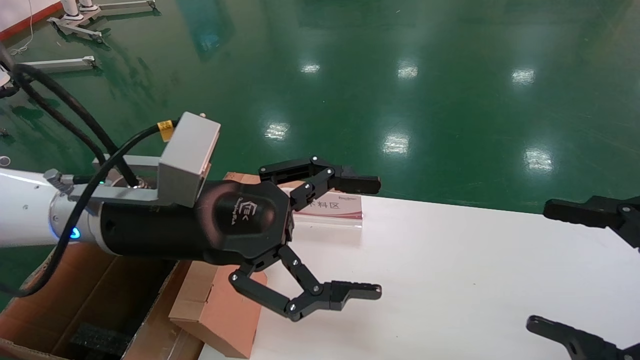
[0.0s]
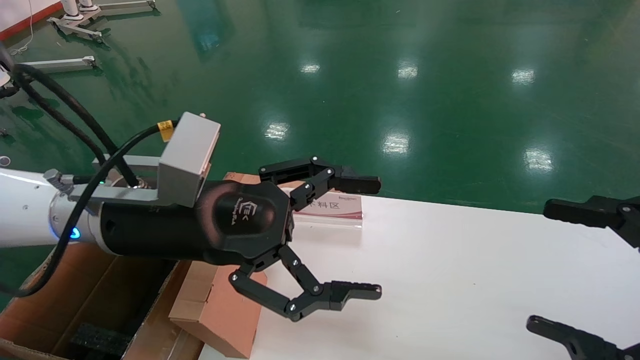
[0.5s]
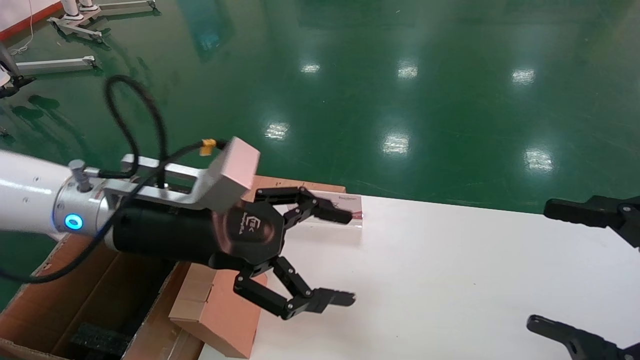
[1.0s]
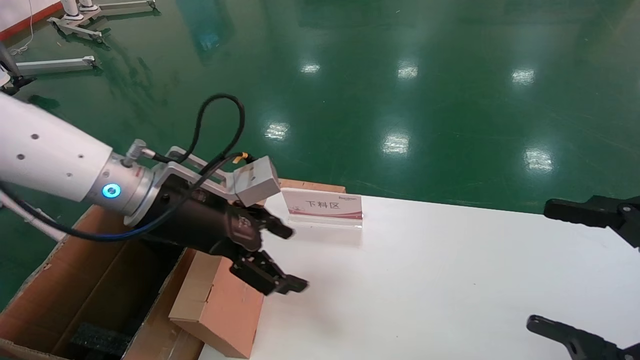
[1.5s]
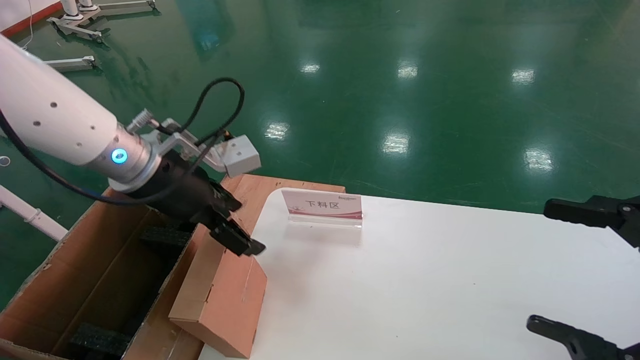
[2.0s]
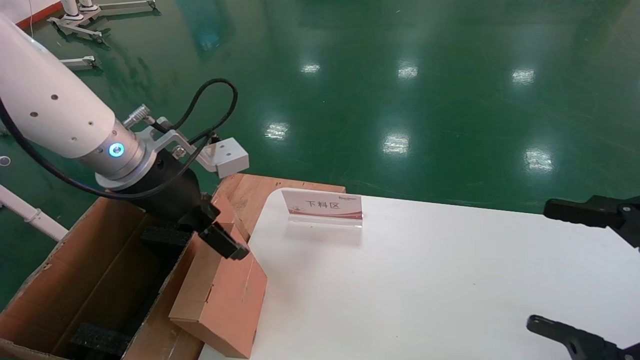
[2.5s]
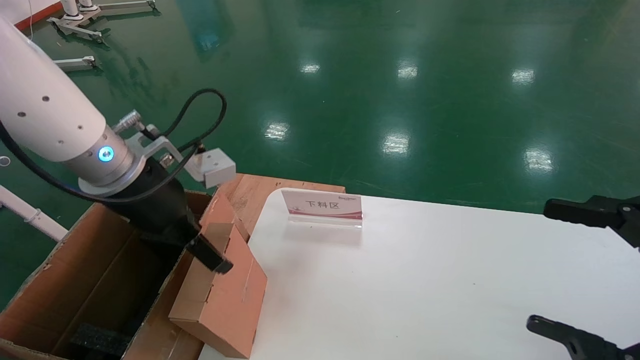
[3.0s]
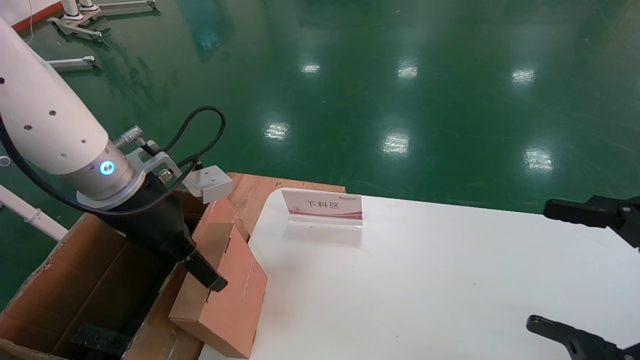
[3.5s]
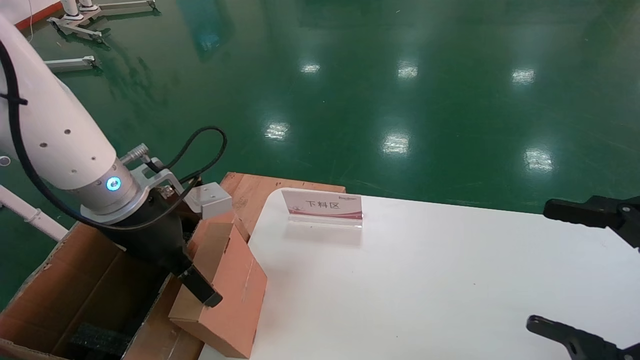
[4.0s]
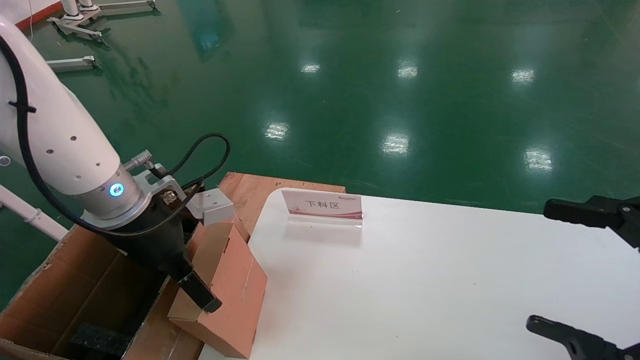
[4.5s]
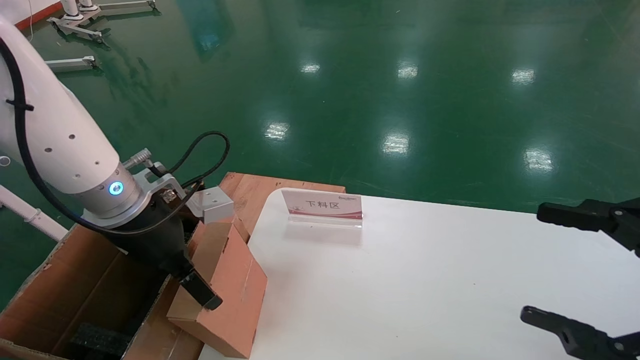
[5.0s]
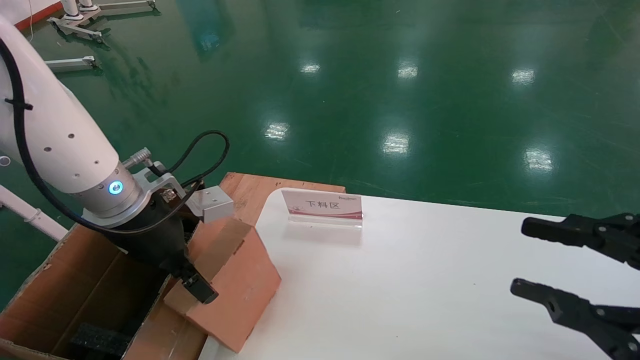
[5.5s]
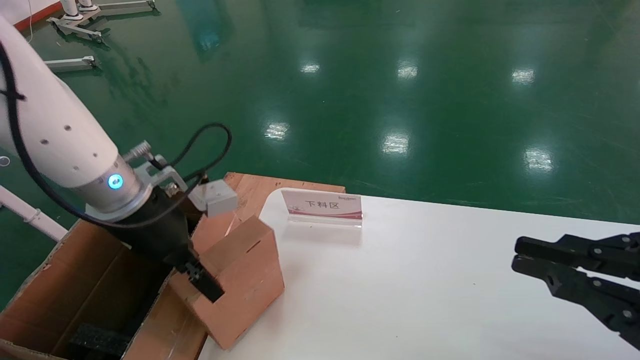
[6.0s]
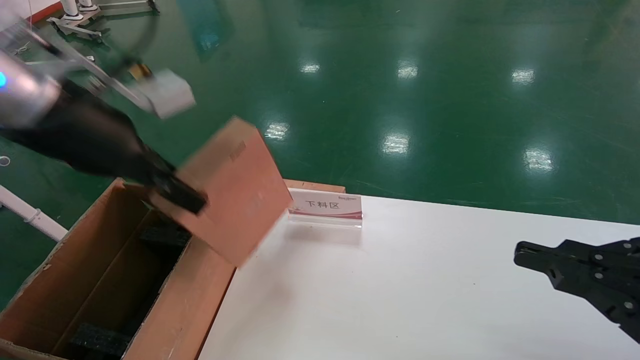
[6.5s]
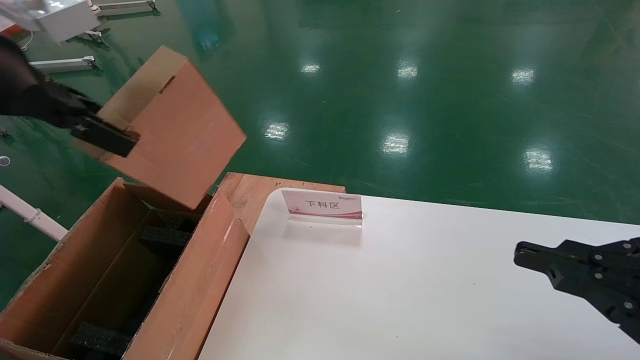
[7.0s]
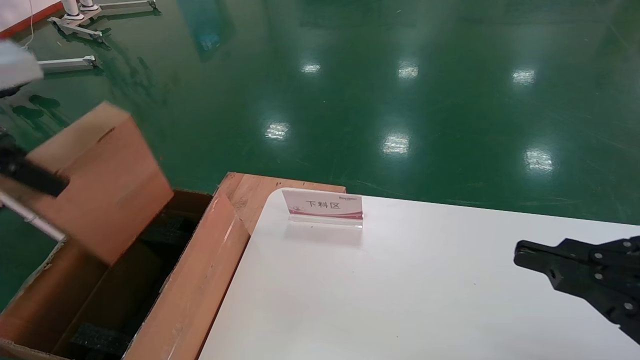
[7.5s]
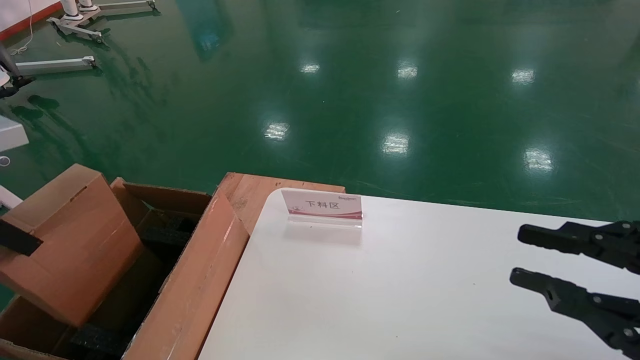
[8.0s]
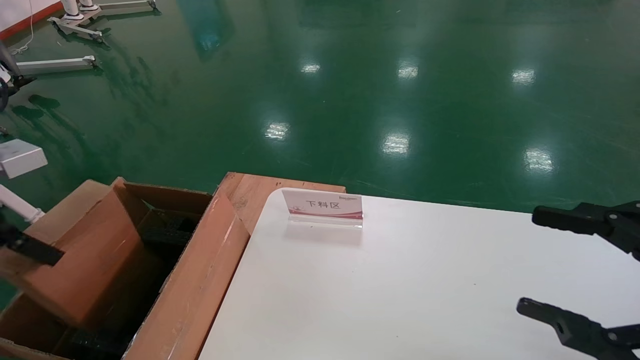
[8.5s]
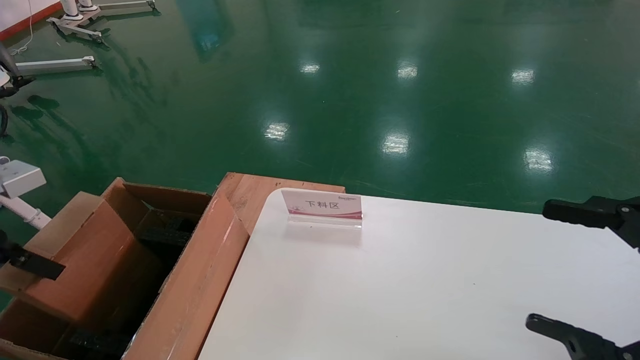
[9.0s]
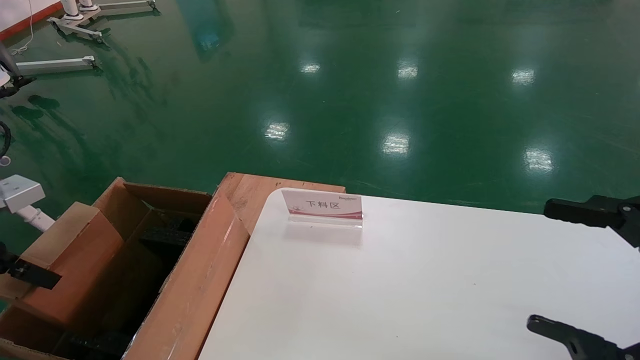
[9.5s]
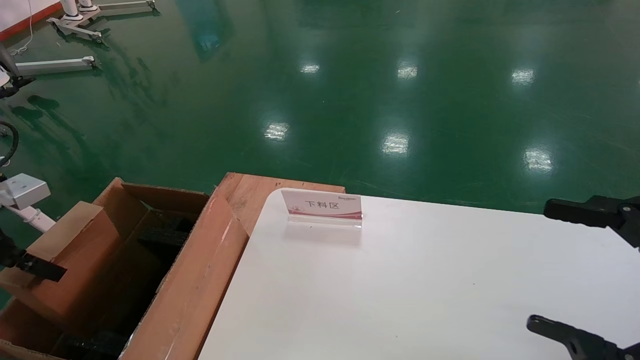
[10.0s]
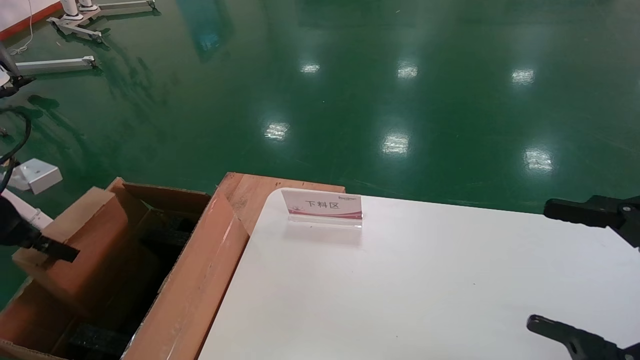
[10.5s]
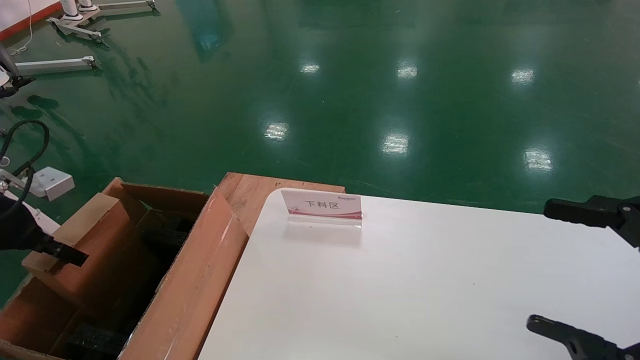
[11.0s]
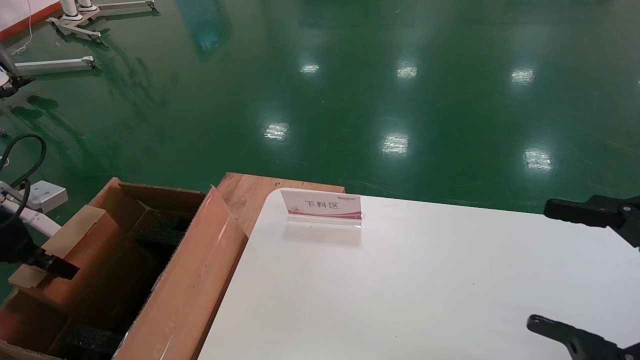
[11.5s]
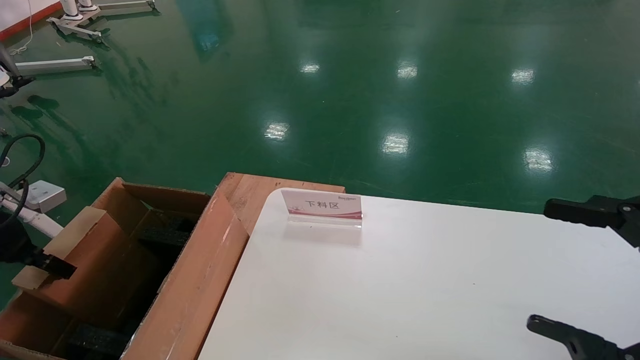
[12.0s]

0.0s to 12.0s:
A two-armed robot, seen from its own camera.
Task of the whole recording: pick up the small cardboard box and load it into the large cardboard box.
Step, 1.5s to 5.5s: Pick up the mouse and power cord box.
0.0s to 2.0s: The left gripper is displaced forward by approximately 5 cm.
4.0s to 6.0s: The left gripper closes; the right gripper closes up.
6.0s to 8.0s: The left gripper travels to the left, backward and upward by about 20 cm.
8.0s to 10.0s: The right gripper opens. The left gripper heads downward and to the left, covering about 15 cm.
10.0s to 12.0s: There are only small adjustments of the grippers.

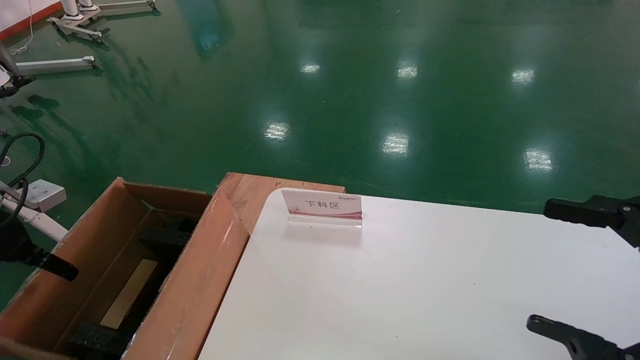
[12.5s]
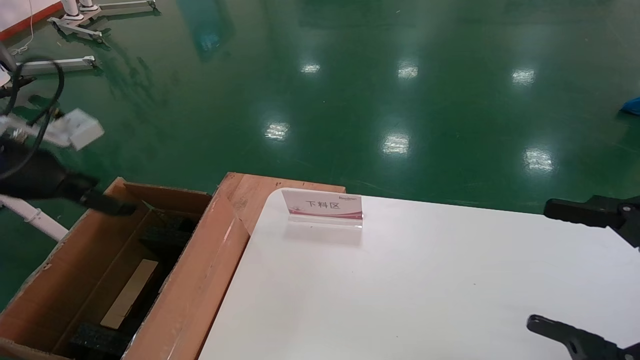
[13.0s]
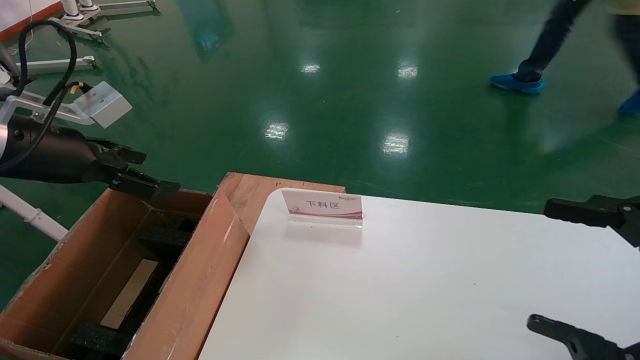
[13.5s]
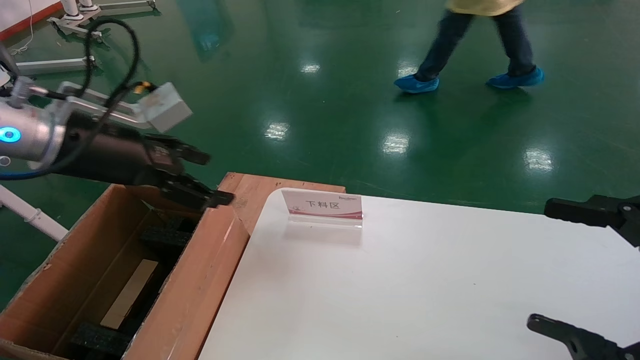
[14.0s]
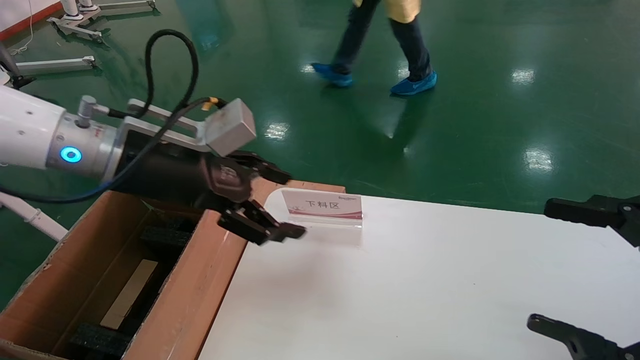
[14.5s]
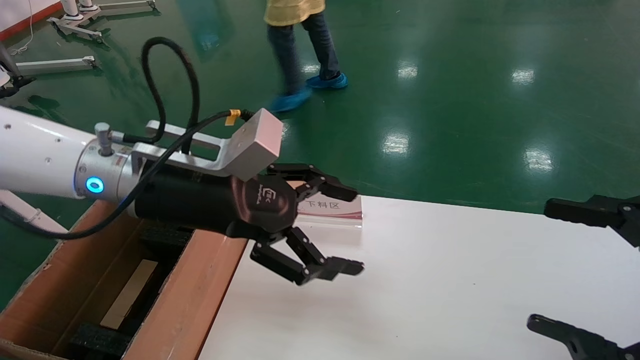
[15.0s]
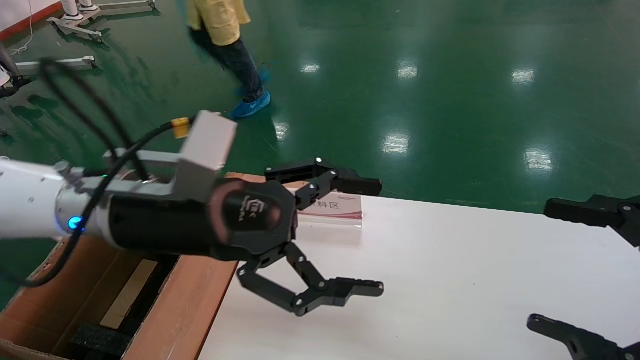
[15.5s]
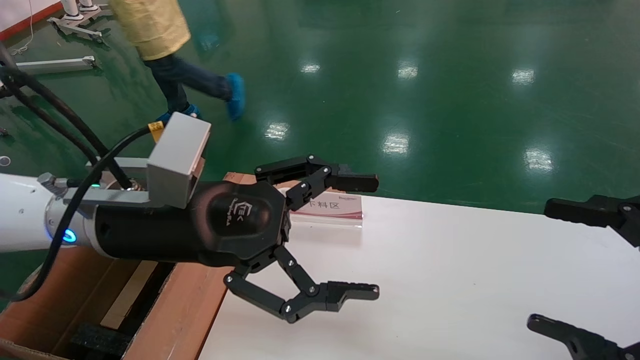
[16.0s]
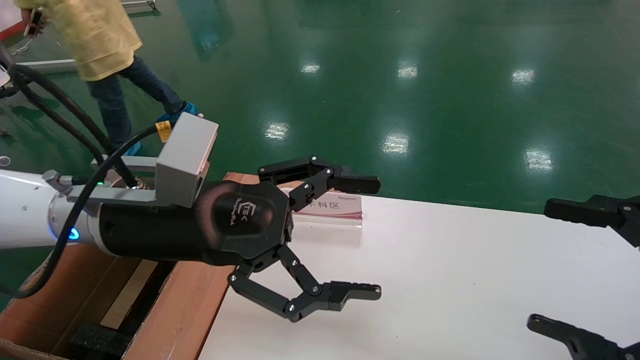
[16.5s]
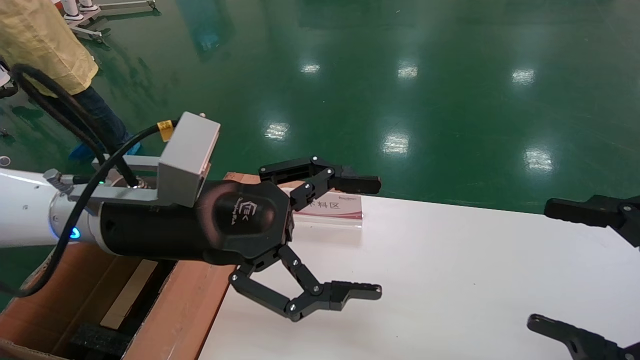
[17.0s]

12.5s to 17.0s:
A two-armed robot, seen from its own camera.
Task of the whole recording: pick up the small cardboard box and load it into the large cardboard box.
12.5s to 14.5s: The left gripper shifts approximately 25 cm to the right, and opens.
14.5s to 17.0s: The left gripper moves roughly 10 cm.
